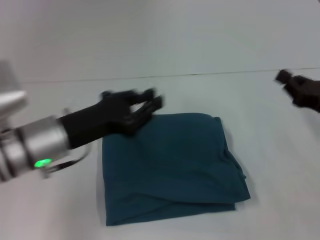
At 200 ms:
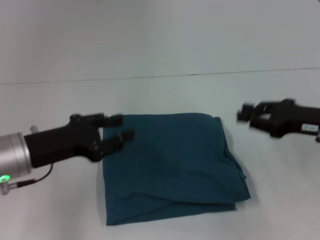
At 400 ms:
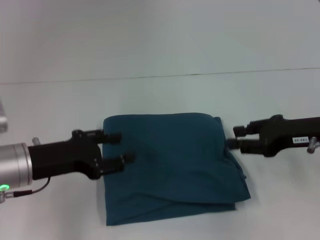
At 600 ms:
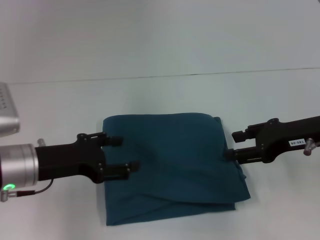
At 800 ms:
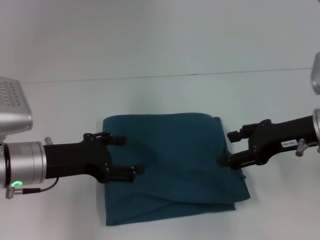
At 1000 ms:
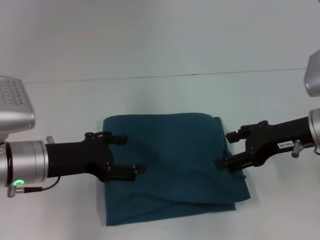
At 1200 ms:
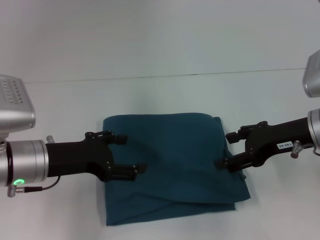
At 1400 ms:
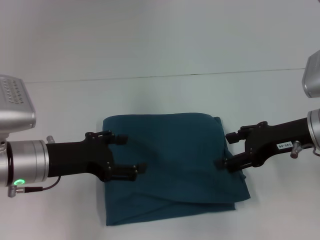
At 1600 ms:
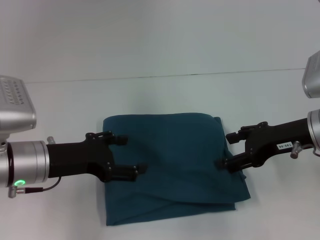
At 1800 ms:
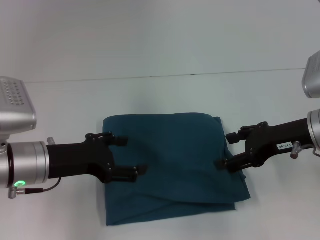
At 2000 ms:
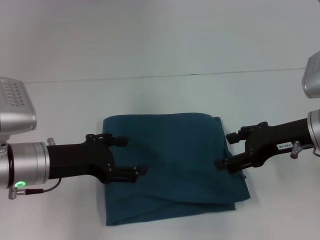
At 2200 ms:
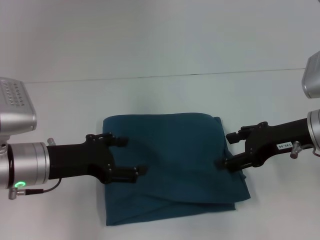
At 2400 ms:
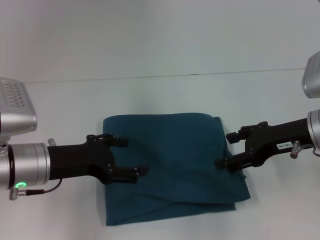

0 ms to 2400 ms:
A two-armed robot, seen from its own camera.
0 ms to 1200 ms: The right gripper moves to the left and upward, roughly 10 cm, and opens up. Meanwhile the left gripper opens up.
1200 ms to 2400 ms: Both grippers stay about where they are.
